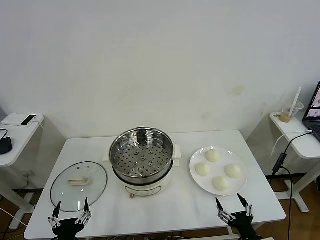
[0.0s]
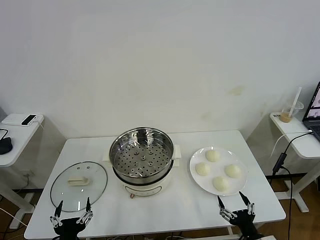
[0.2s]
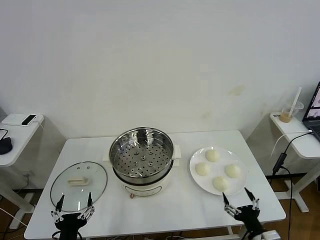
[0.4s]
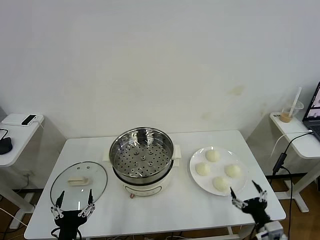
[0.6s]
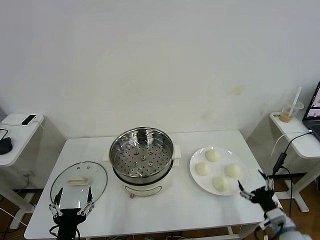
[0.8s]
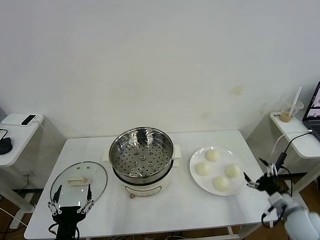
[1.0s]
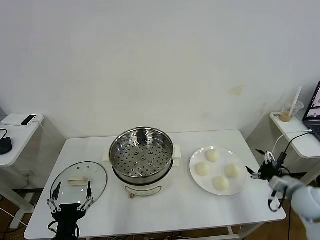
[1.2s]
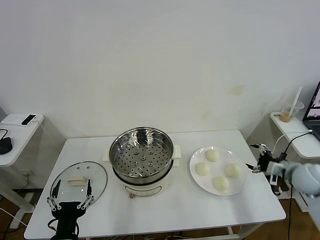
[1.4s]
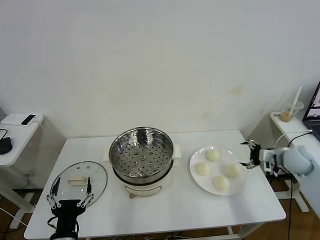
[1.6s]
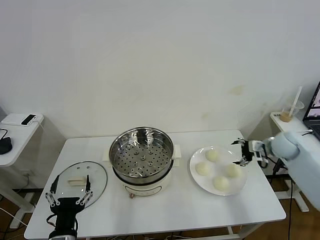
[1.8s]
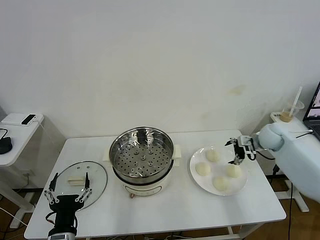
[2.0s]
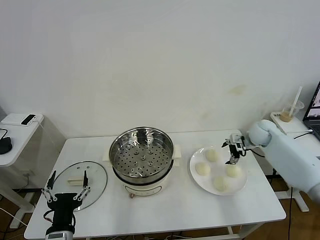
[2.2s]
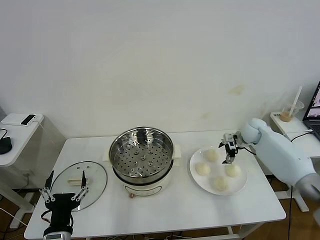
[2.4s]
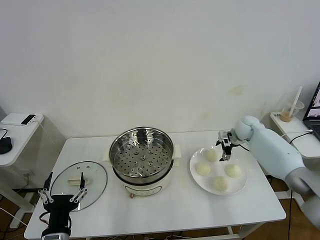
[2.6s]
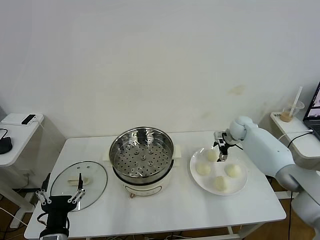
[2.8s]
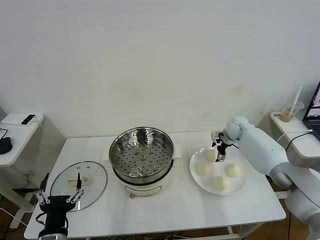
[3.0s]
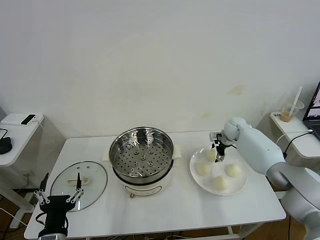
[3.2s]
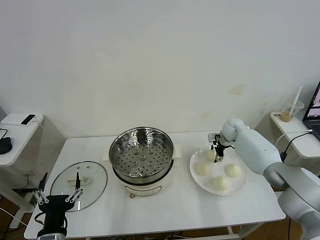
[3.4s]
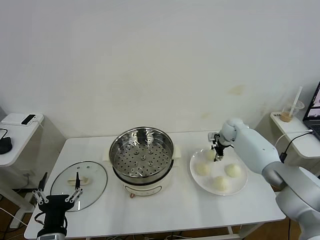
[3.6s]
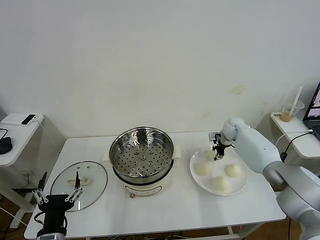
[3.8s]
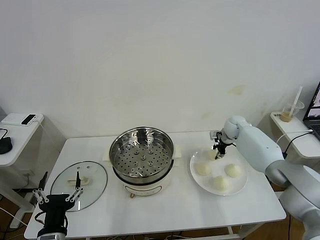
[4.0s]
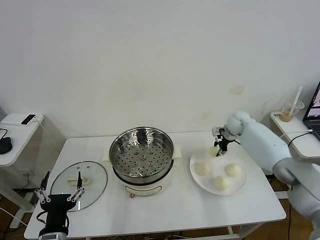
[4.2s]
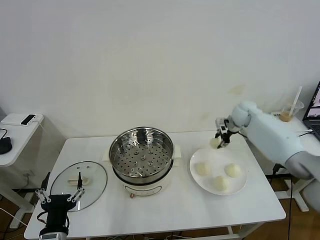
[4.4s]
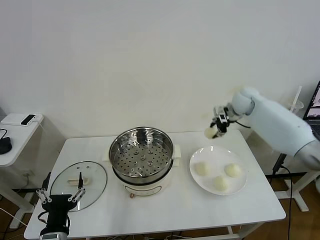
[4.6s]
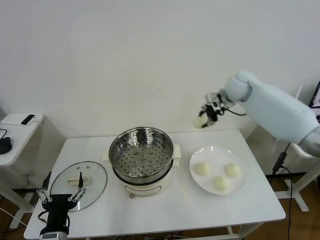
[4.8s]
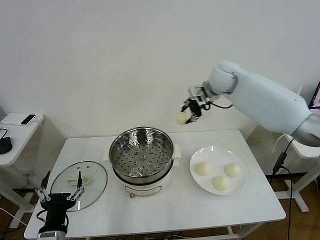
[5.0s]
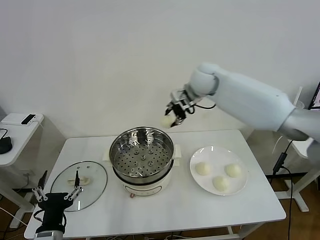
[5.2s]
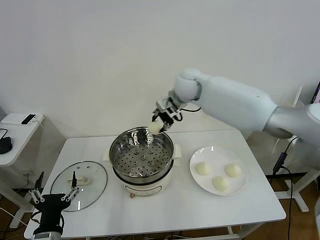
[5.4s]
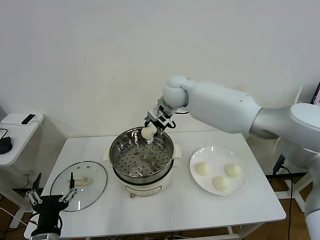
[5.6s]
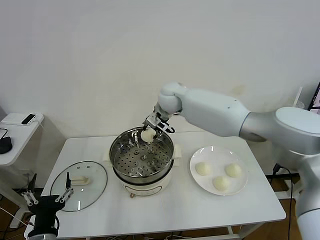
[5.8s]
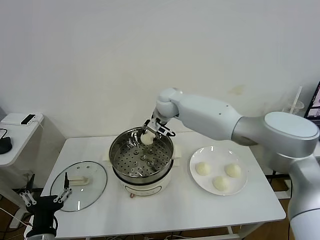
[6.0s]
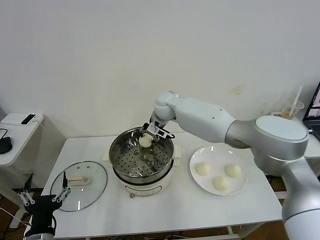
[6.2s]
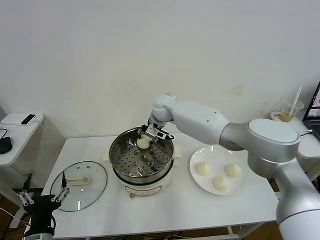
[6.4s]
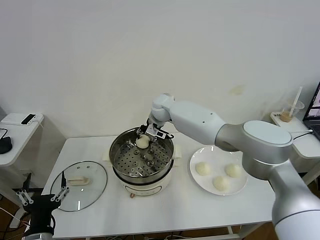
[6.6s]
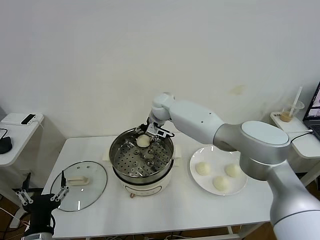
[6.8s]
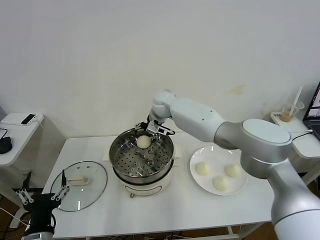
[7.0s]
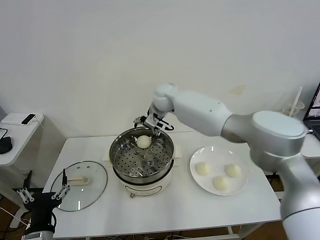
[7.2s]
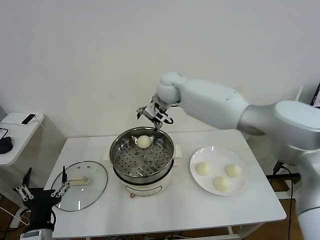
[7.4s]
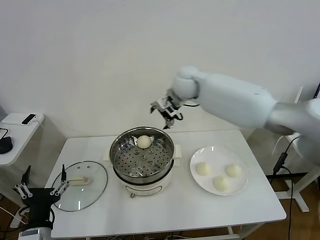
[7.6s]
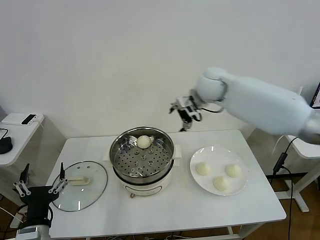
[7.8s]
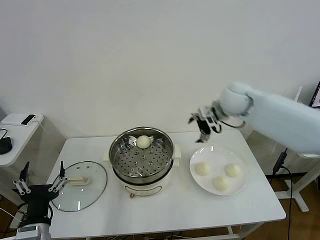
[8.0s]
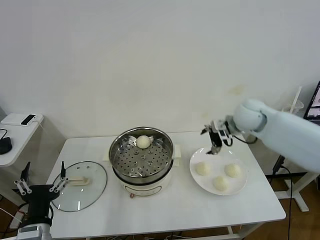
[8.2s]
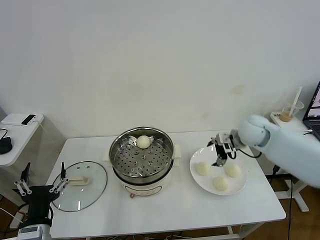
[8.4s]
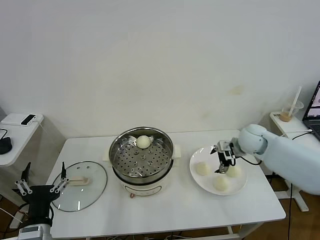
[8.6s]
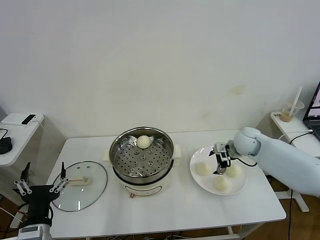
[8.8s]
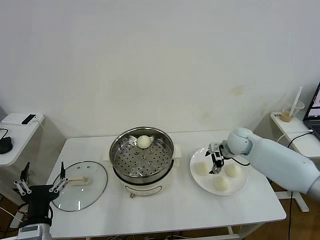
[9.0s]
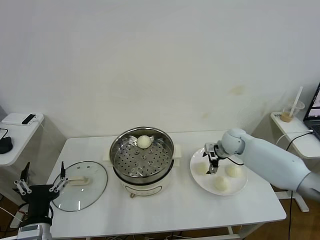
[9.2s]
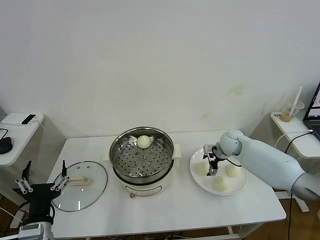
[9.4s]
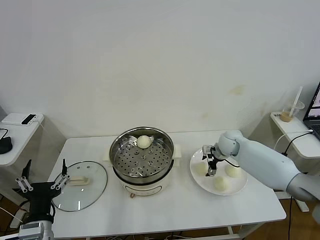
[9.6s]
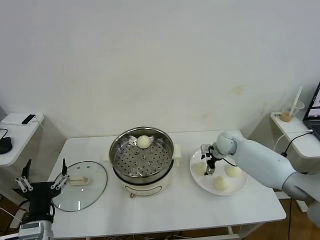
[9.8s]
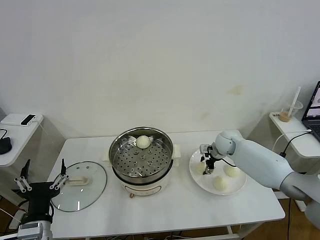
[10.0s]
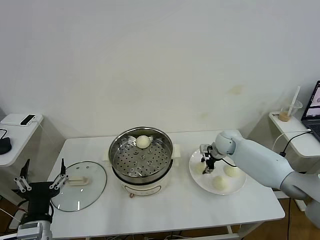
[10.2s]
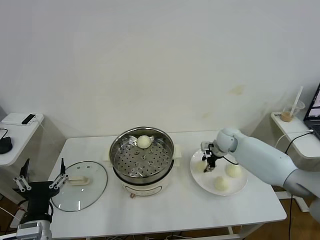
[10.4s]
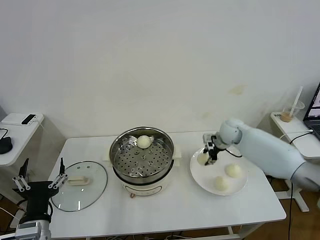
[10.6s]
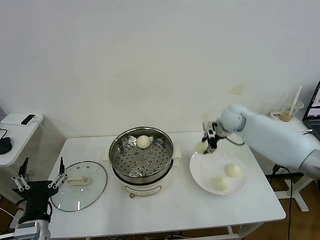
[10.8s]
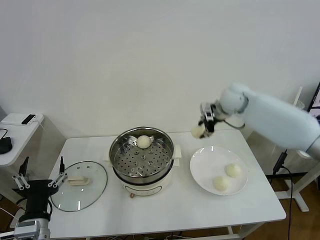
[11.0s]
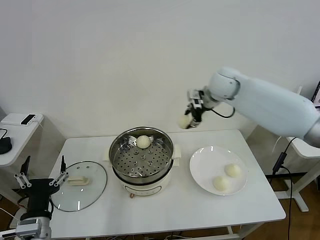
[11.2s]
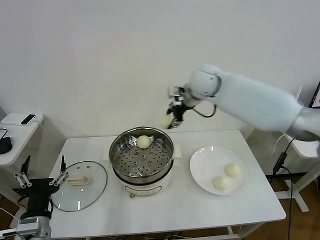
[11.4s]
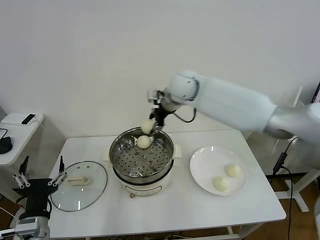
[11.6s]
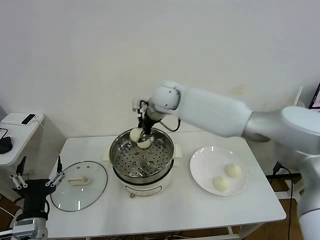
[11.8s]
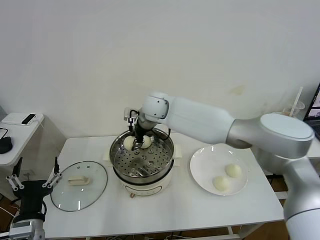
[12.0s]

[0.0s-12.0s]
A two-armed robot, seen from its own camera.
Task of the whole recording: take steamed baozi put them in steamer then cover it.
Step, 0.0s to 3.8s: Grasp the baozi in the plate with right gripper.
Step, 4.0s to 7.0s: Place the baozi on the steamer with right gripper.
Step, 7.2s to 10.2s: Grasp the baozi in the plate with right gripper.
1.6s to 3.0s: The right gripper goes about 20 cm forward and to the left.
3.0s to 4.4s: The right gripper shifts about 10 cm upward, and closes.
4.4s to 6.0s: The right gripper is displaced to the left by approximately 30 cm.
6.0s to 7.6s: The right gripper is displaced upward and to the right by roughly 15 cm, and opens up.
7.6s to 9.0s: The right gripper heads downward and to the right, covering some 25 cm.
9.0s to 10.4s: The right gripper closes its fingers.
10.4s to 12.0s: The right gripper moves to the left and upward, about 35 cm.

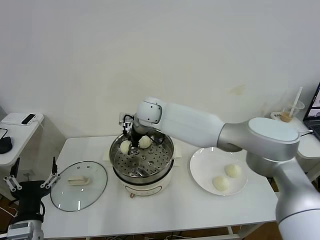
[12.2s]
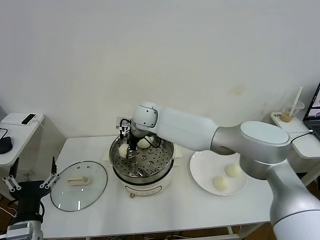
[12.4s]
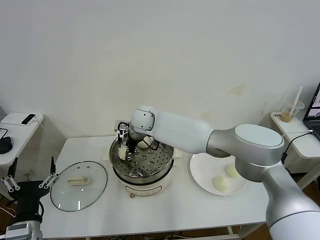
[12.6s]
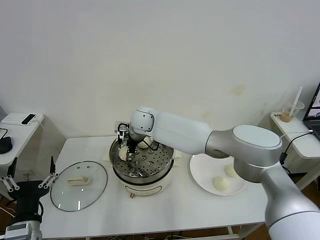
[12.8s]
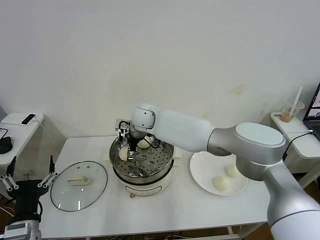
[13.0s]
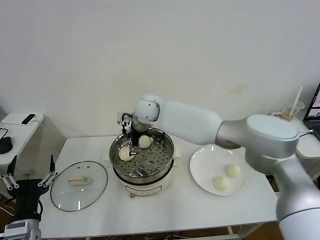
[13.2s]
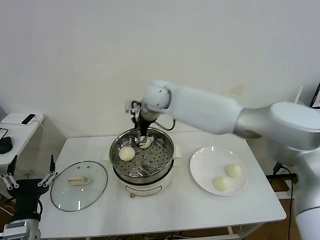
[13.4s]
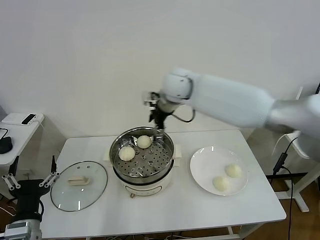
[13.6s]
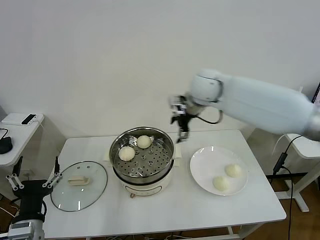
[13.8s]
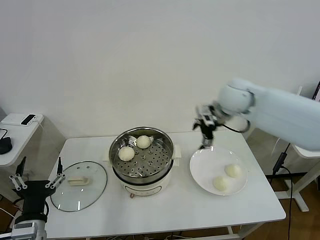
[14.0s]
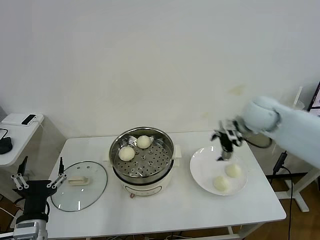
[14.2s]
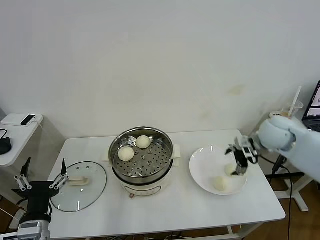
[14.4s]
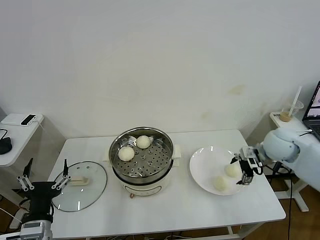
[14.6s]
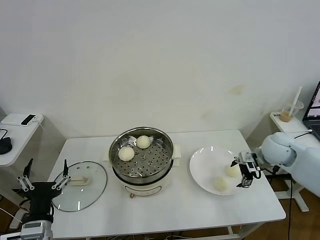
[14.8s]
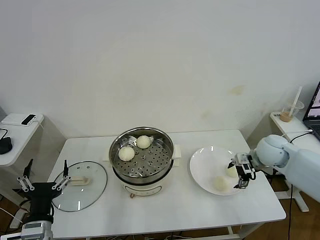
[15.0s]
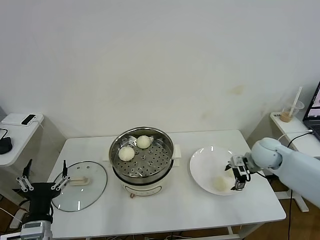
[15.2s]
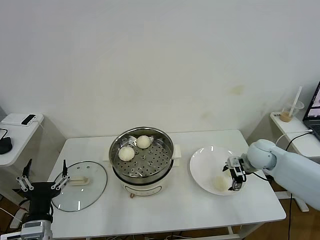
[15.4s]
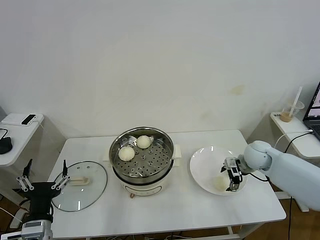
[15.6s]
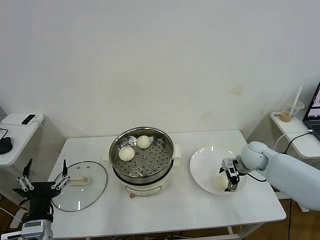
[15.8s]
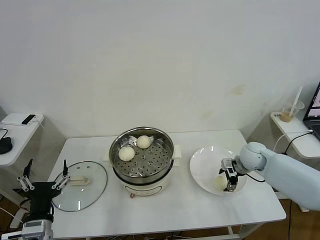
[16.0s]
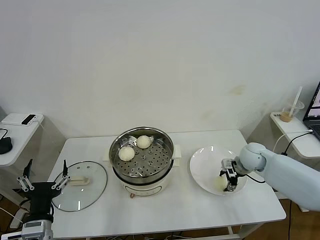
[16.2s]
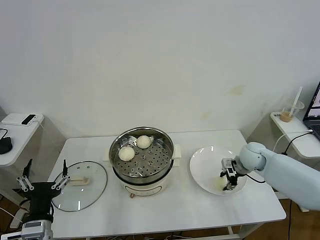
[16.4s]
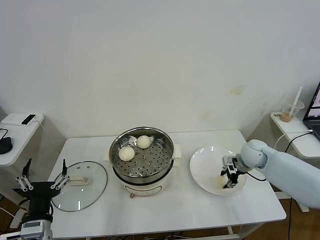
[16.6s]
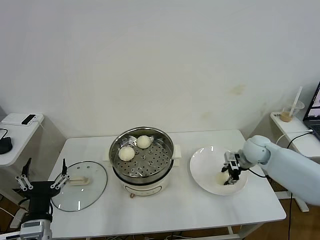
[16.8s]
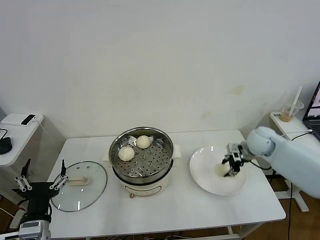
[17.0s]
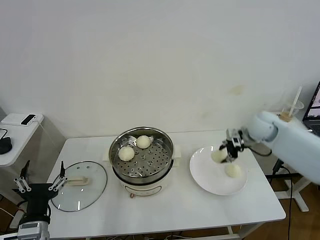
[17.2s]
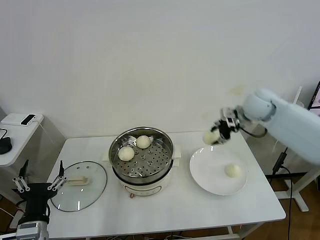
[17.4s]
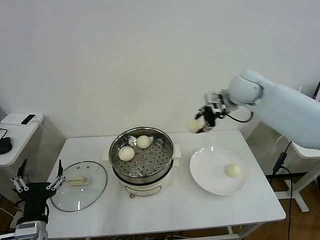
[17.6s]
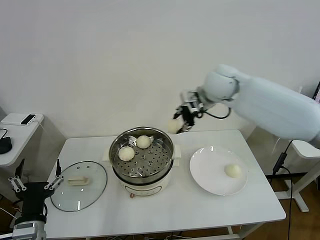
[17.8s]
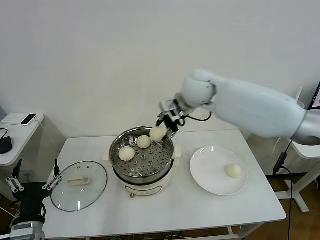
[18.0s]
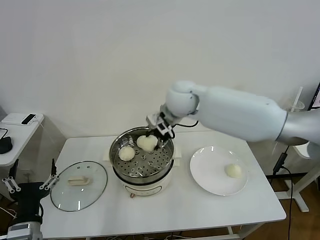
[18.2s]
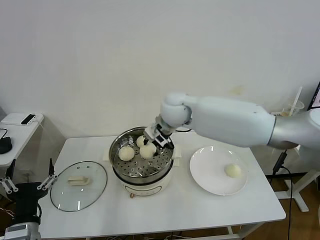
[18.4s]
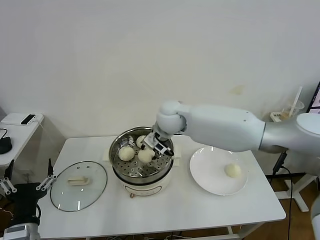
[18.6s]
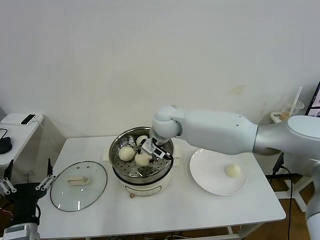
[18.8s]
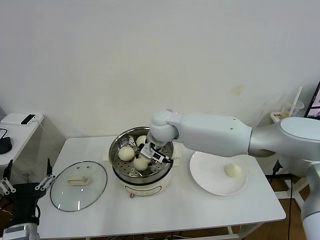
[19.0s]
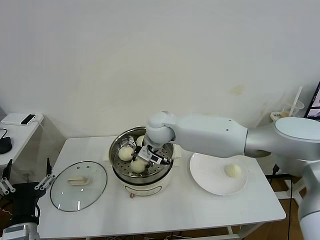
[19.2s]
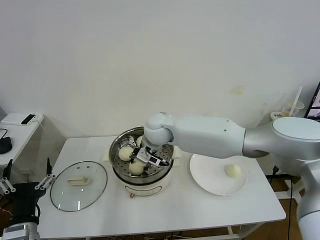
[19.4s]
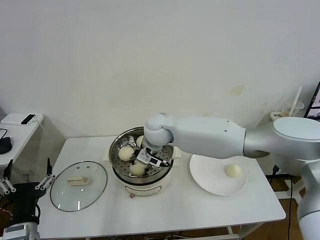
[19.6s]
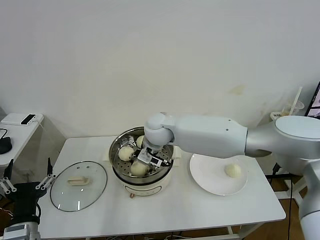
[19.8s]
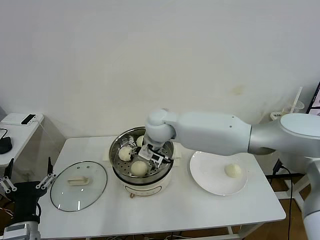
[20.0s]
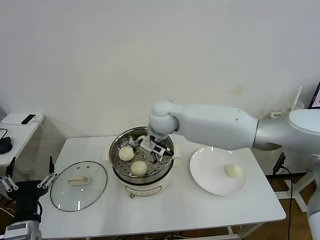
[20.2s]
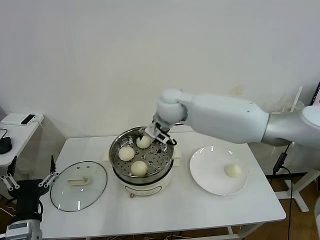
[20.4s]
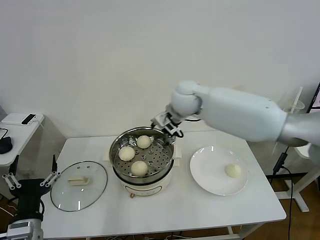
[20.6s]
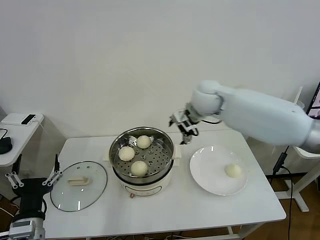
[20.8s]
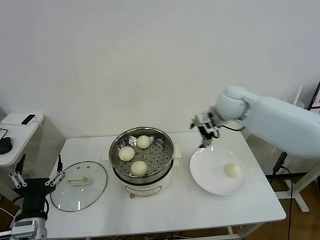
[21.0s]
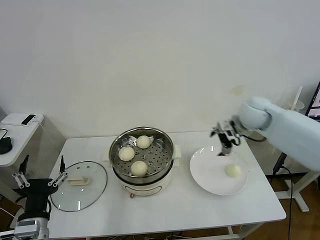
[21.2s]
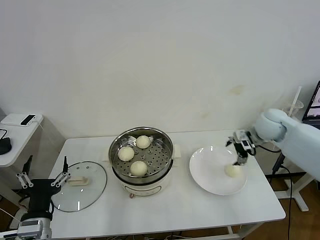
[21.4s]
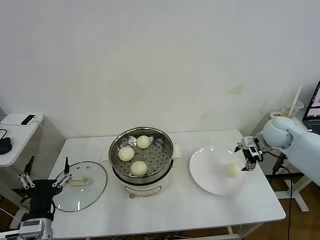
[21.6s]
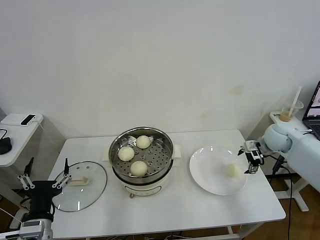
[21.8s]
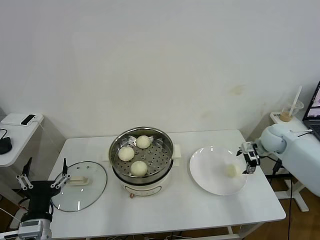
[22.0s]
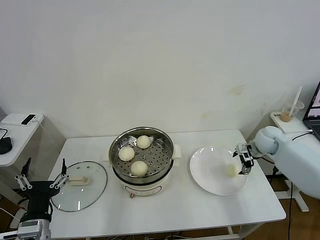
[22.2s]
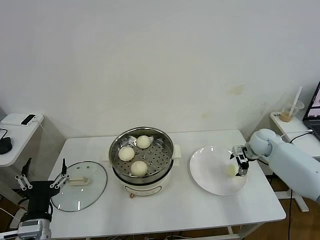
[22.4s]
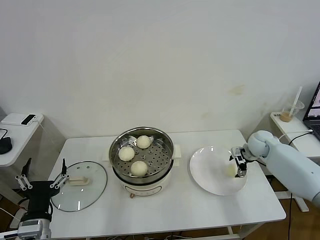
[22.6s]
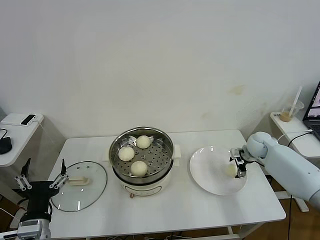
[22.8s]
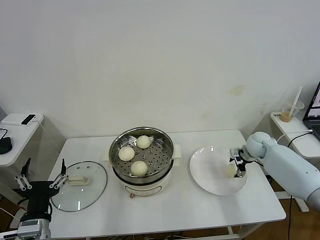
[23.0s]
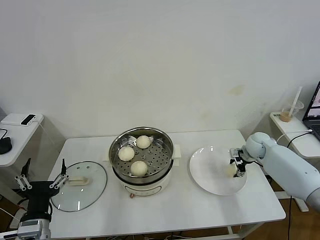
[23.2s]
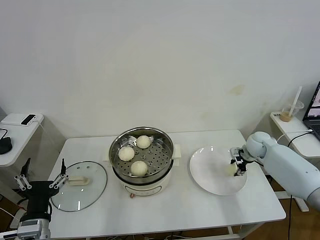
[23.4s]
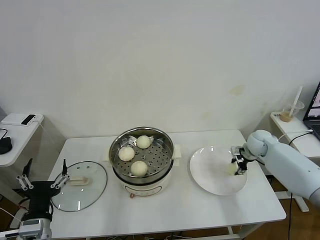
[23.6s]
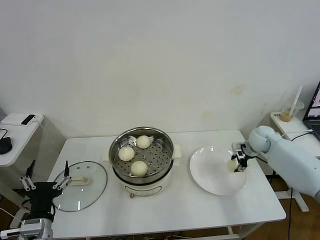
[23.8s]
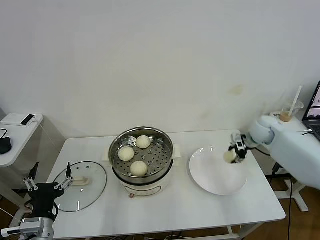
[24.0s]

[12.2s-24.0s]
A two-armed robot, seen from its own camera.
Task of the whole recording: take steamed baozi put them in steamer then cover it.
Step, 13.4s to 16.4s: Grasp the baozi in the plate with right gripper.
Step, 16.6s to 19.8s: Place the baozi on the steamer with right gripper.
Step, 20.2s to 23.4s: Grasp the baozi in the plate with right gripper.
12.2s to 13.6s: The right gripper goes approximately 15 cm to the right and upward, and opens up.
13.6s to 15.2s: The right gripper goes roughly 35 cm to the right and downward.
15.2s to 16.6s: The right gripper closes its fingers.
16.6s to 18.2s: The right gripper shifts about 35 cm to the left and upward.
18.2s to 19.6s: The right gripper shifts some 10 cm downward and to the left.
19.6s to 21.0s: The right gripper heads to the right, covering some 25 cm, and opens.
21.0s to 22.6s: The right gripper travels downward and to the right by about 25 cm.
22.6s to 24.0s: The right gripper shifts approximately 5 cm upward, and closes up.
